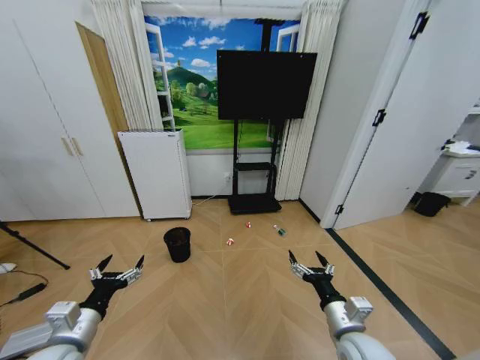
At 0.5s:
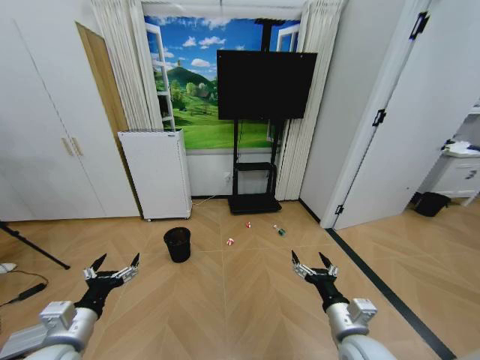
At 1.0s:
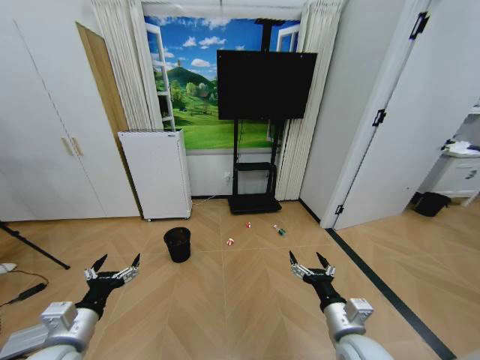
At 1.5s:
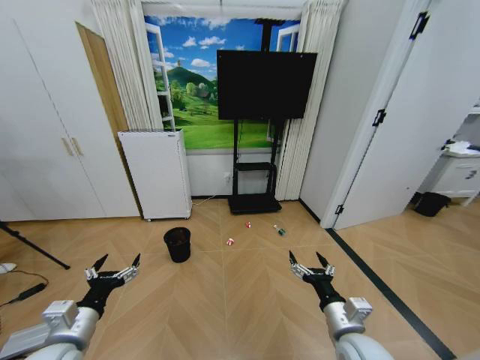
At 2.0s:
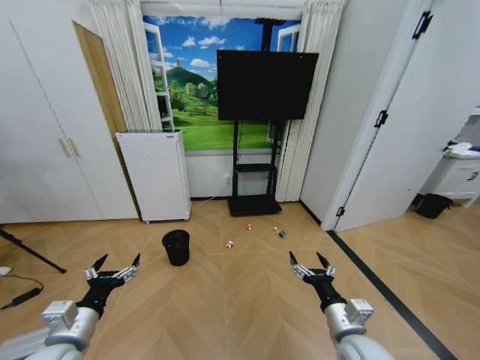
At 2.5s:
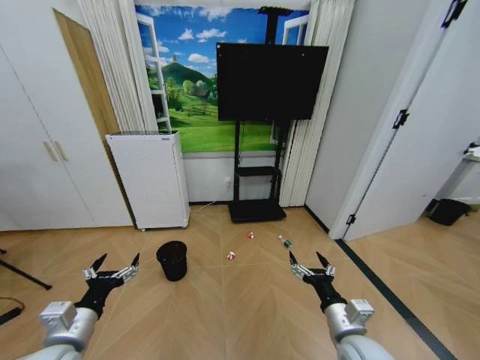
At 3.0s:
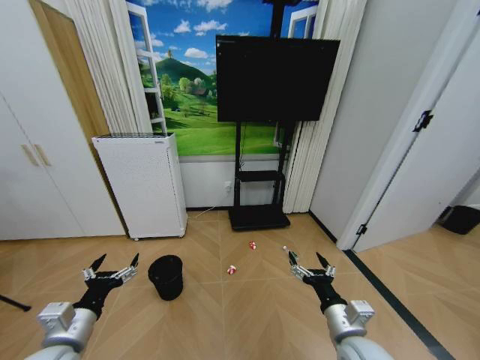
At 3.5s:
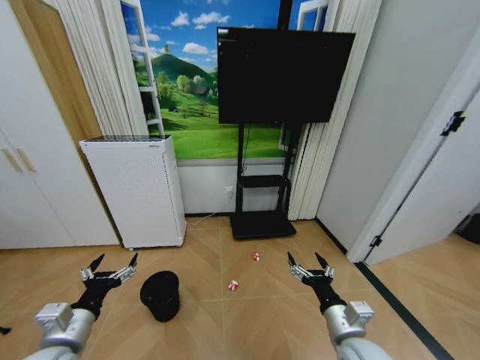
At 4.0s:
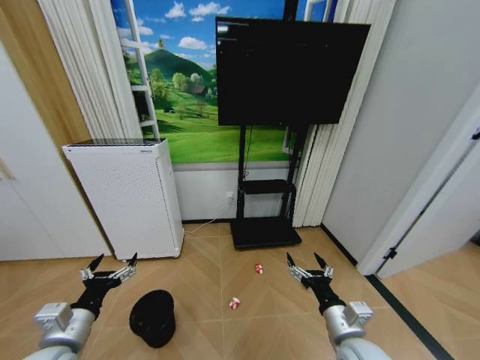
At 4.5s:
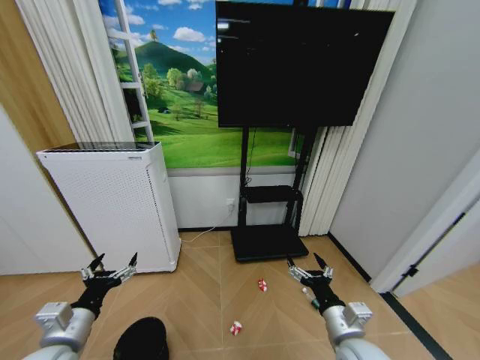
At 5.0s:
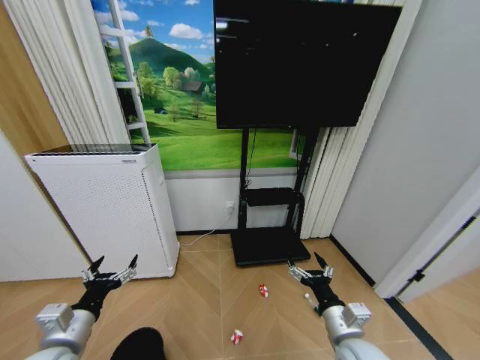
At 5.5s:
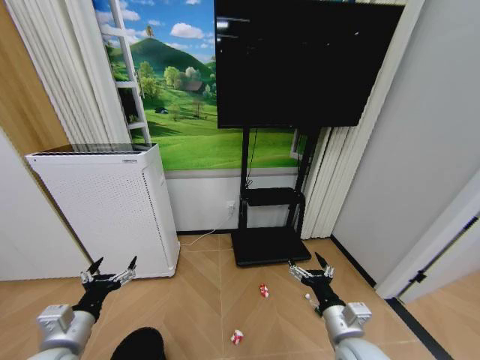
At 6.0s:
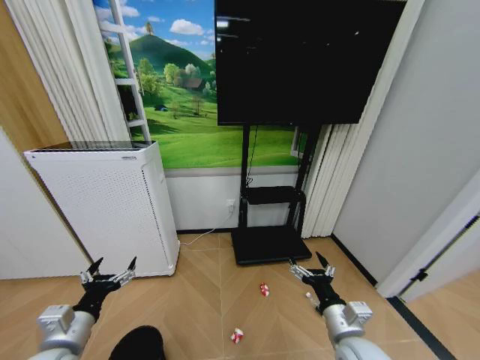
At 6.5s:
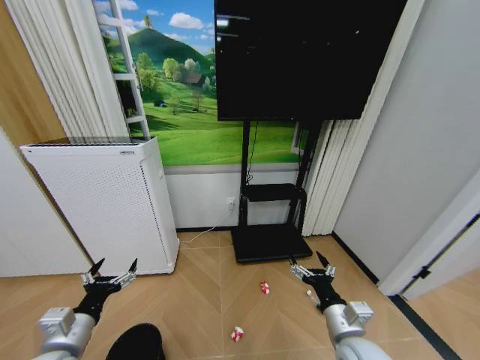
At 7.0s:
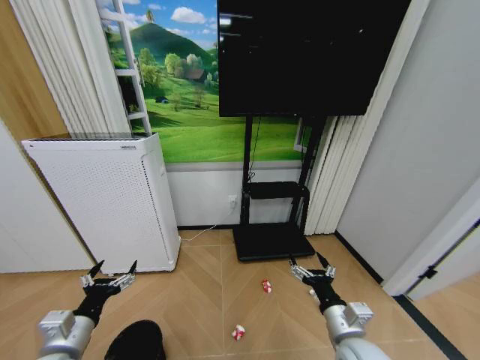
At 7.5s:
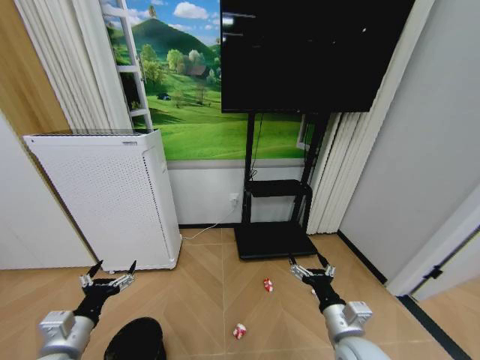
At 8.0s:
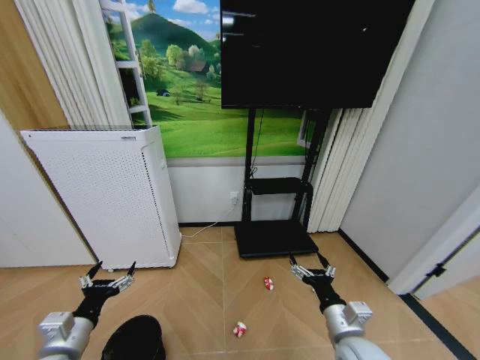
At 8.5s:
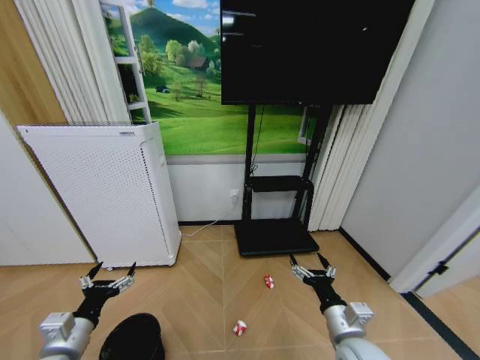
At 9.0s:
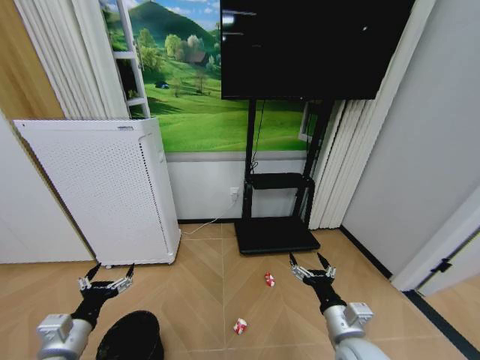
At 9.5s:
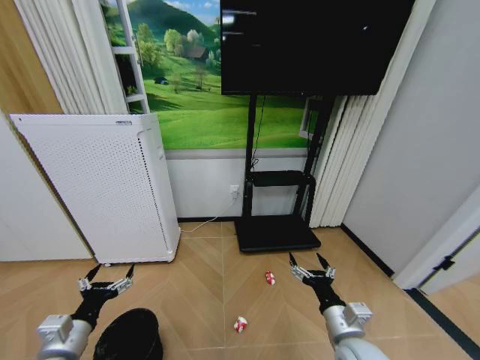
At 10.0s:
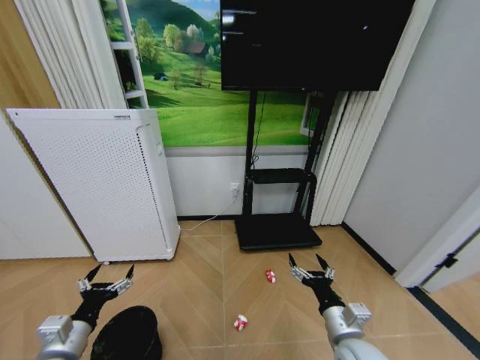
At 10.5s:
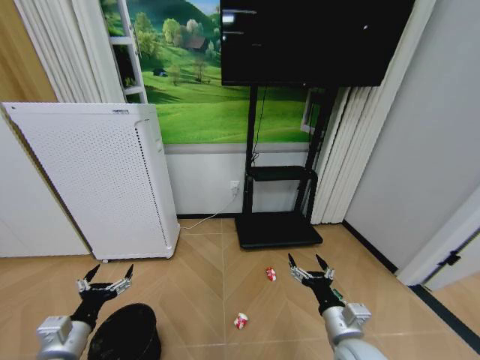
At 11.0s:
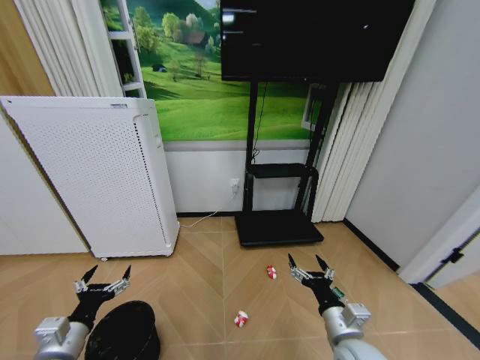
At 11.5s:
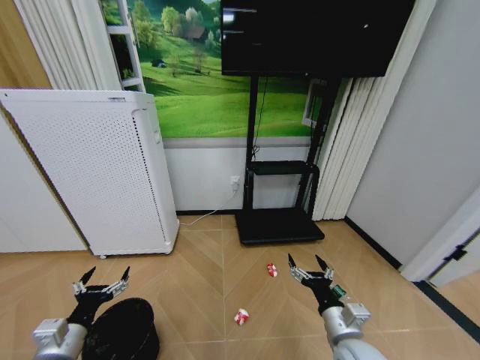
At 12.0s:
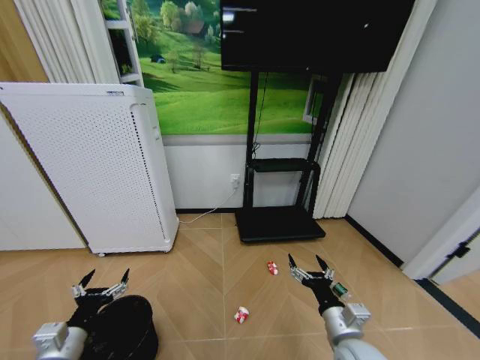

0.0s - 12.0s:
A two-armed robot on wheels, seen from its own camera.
Task of the whole recording: Pick up the trash bin and place the garbage on the floor into it.
8.0s - 10.0s: Both grippers stay put.
10.0s - 12.0s: The grippers stay close to where they were, moving slightly.

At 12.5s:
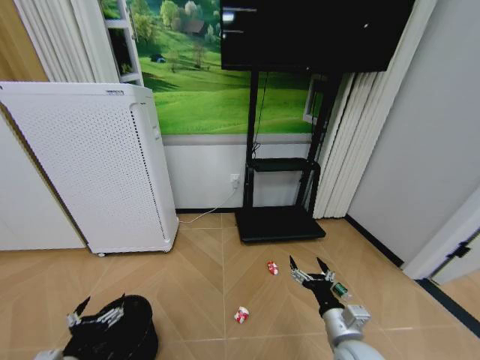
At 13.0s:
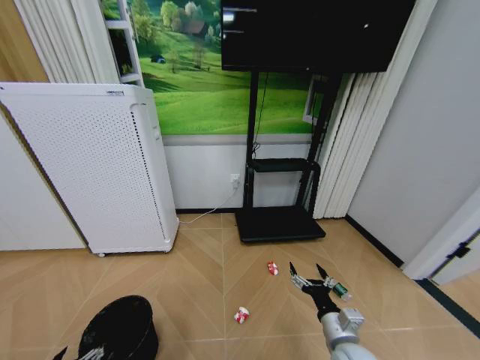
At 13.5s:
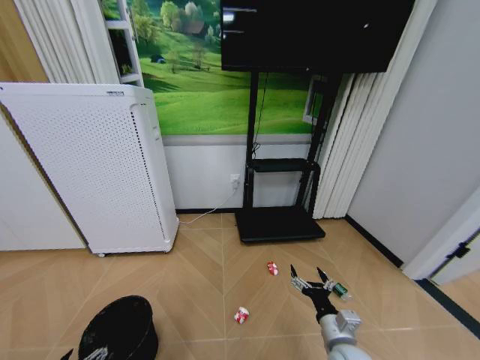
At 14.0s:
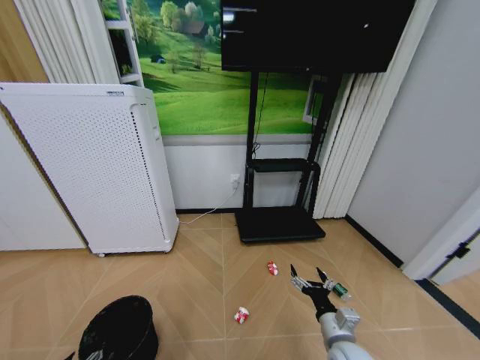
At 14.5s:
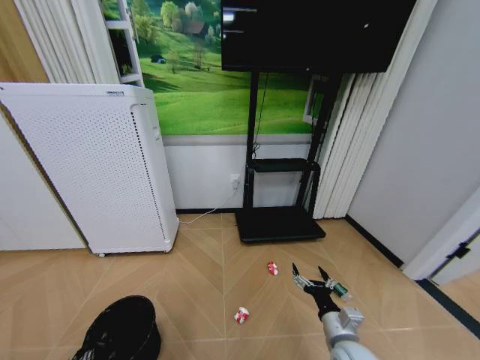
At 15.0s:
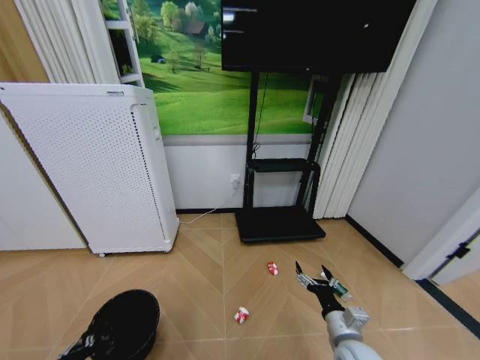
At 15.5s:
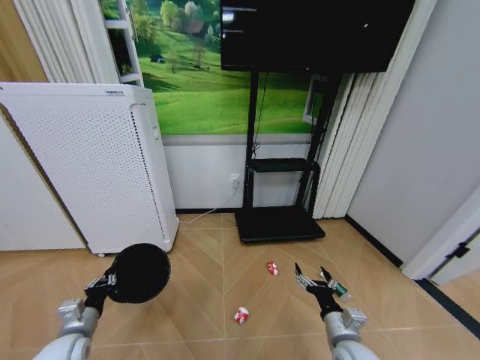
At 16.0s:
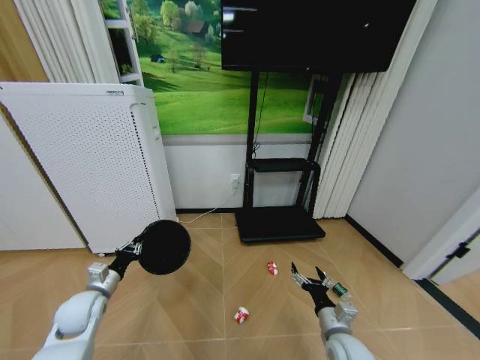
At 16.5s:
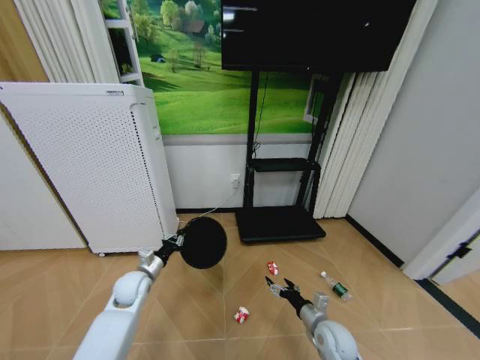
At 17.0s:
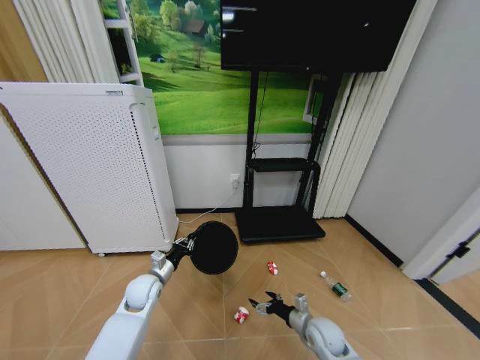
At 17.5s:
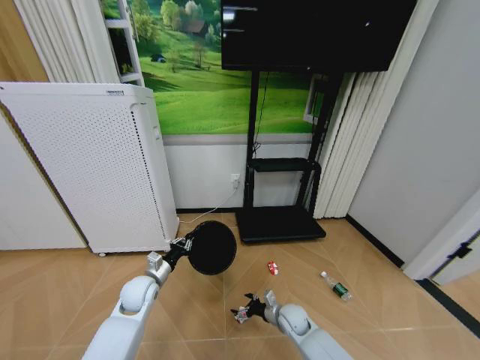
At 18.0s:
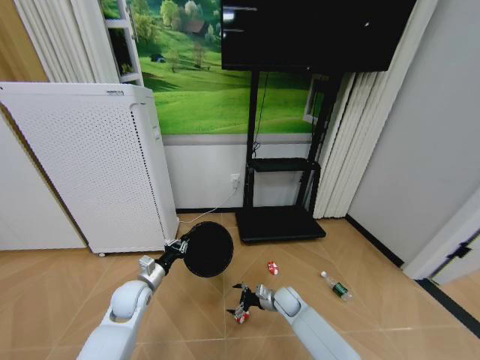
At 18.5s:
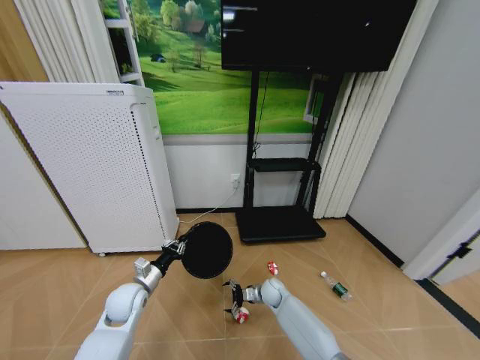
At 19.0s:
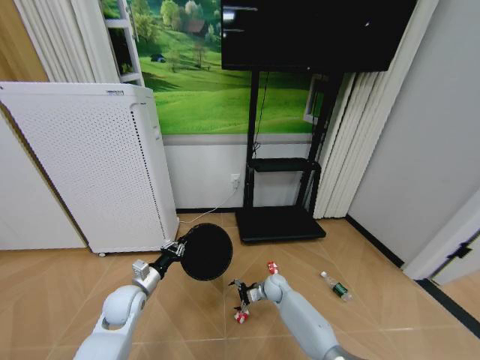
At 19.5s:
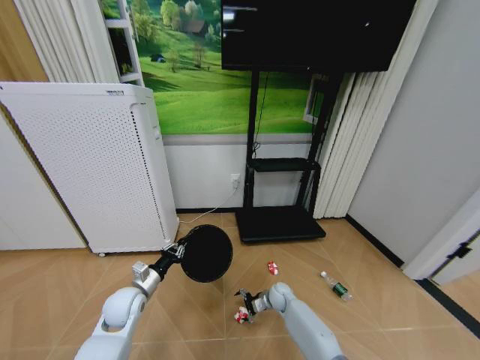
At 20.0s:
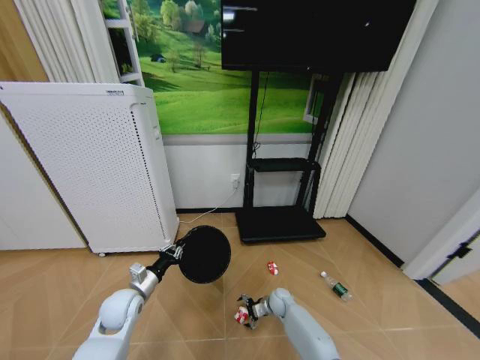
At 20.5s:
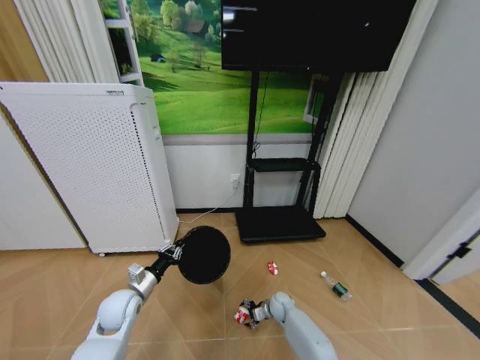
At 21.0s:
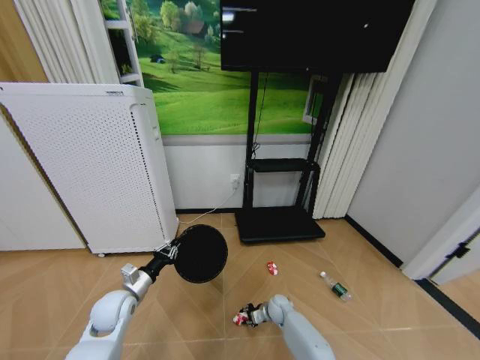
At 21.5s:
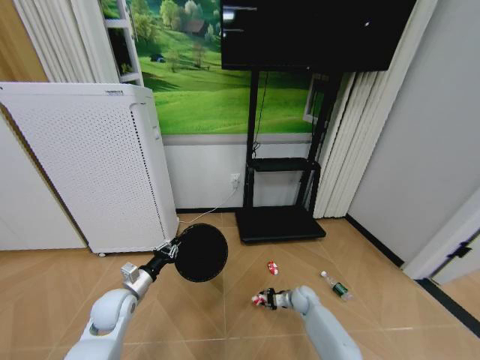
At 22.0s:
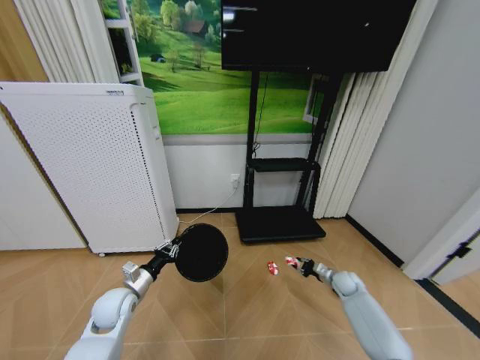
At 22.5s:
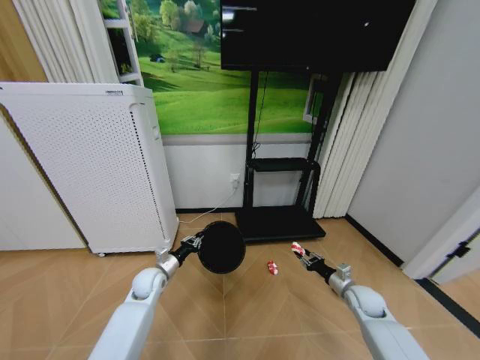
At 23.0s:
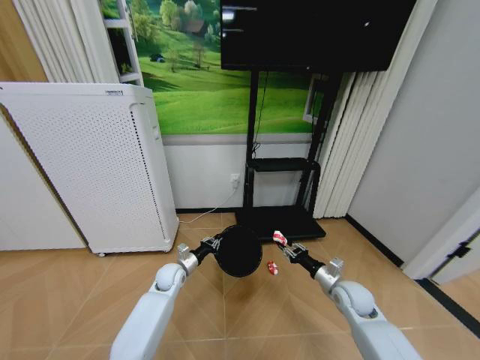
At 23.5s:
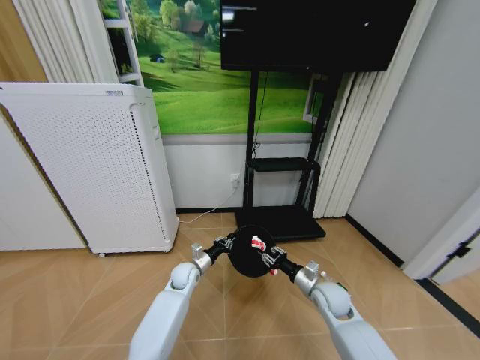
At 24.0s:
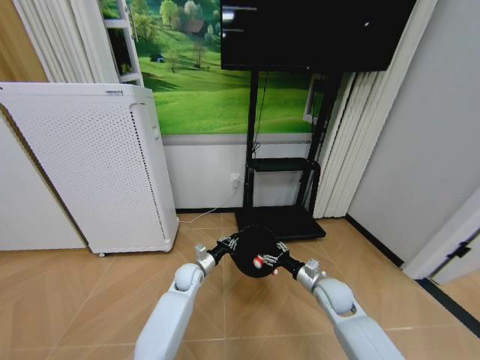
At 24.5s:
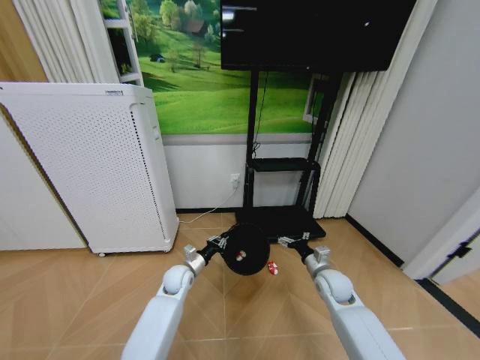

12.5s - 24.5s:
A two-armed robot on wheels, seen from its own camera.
Task of the whole recording: Pick up the trash bin and place the garbage on the floor into it.
12.5s - 14.5s: The left gripper goes roughly 10 cm downward, and closes up.
14.5s - 16.5s: The left gripper shifts some 30 cm forward; the right gripper shifts some 10 cm forward and downward.
16.5s - 18.5s: The right gripper moves forward, to the left and downward, about 20 cm.
18.5s - 20.5s: The right gripper shifts approximately 5 cm downward.
20.5s - 22.5s: The left gripper moves forward, some 10 cm; the right gripper is displaced to the right and upward by some 30 cm, and closes.
22.5s - 24.5s: The right gripper travels to the left and upward by about 15 cm, and opens up, while the left gripper travels to the right by approximately 10 cm.

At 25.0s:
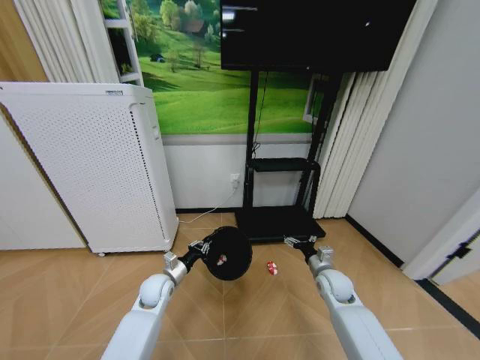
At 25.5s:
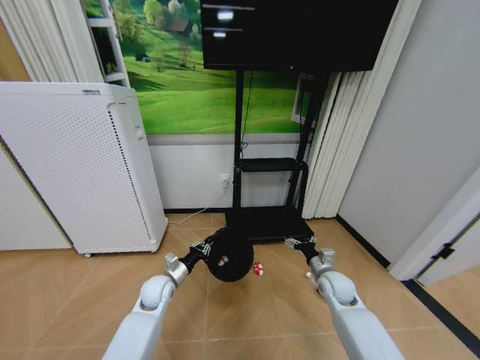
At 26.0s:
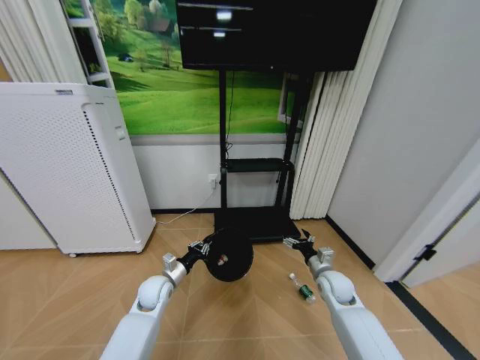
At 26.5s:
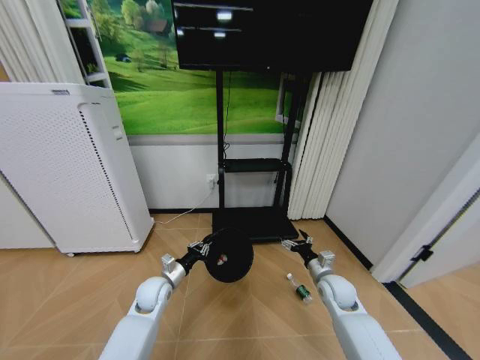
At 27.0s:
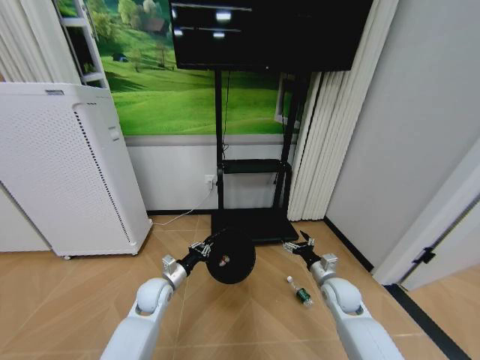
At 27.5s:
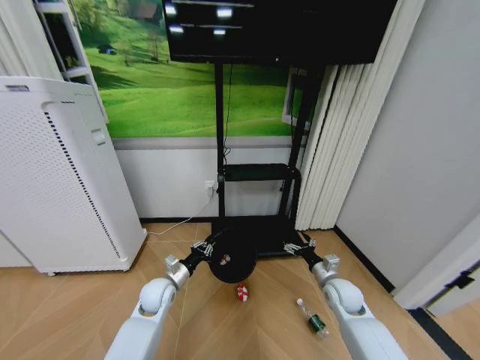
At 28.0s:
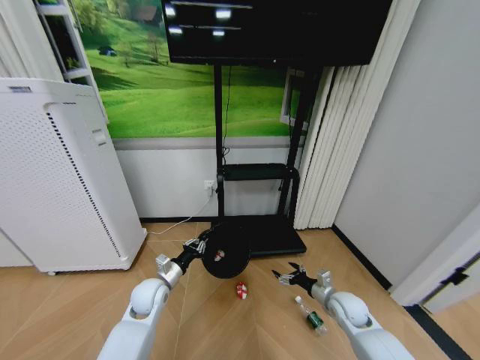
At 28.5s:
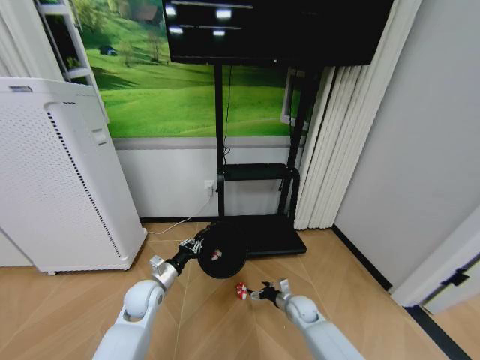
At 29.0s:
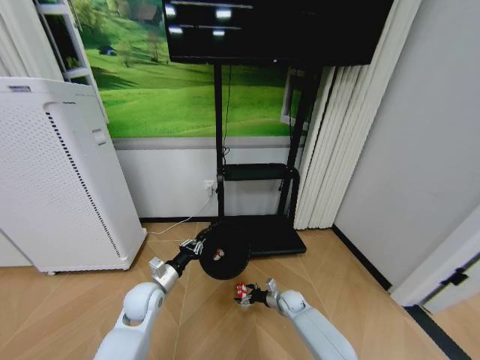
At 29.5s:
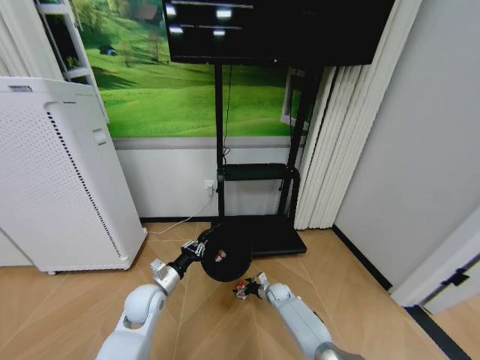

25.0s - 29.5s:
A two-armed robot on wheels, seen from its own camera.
Task of the whole recording: Pick up the trash bin and place the garbage on the floor into it.
27.0s - 29.5s: The right gripper is displaced downward, to the left and forward by some 25 cm.
